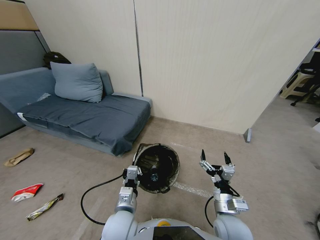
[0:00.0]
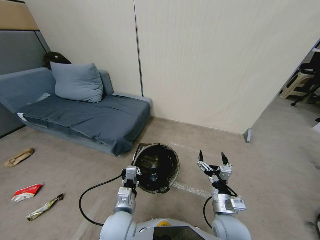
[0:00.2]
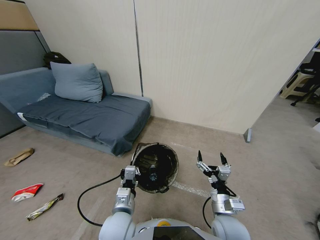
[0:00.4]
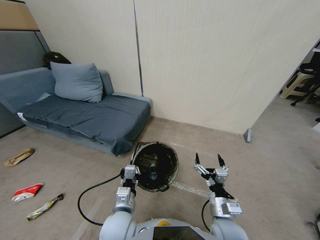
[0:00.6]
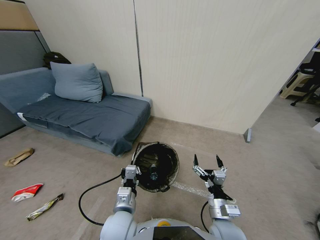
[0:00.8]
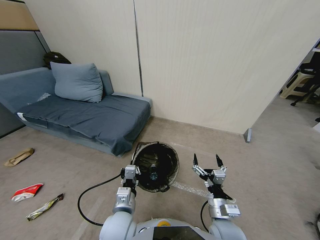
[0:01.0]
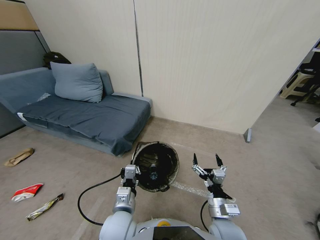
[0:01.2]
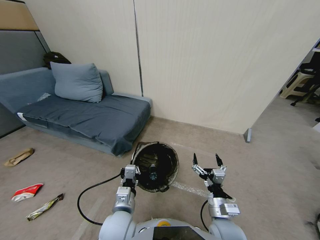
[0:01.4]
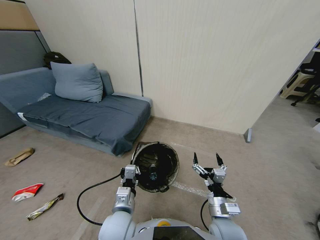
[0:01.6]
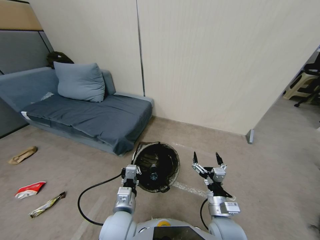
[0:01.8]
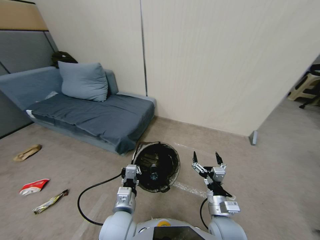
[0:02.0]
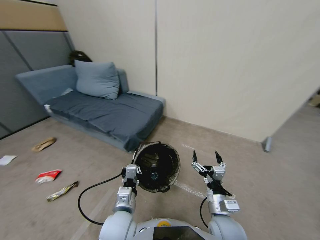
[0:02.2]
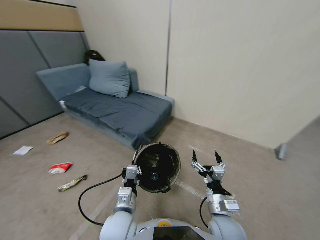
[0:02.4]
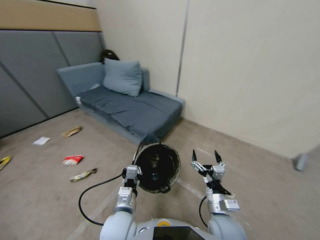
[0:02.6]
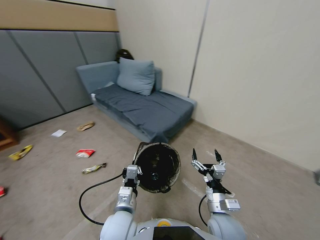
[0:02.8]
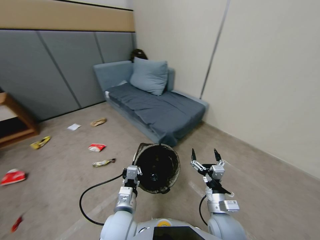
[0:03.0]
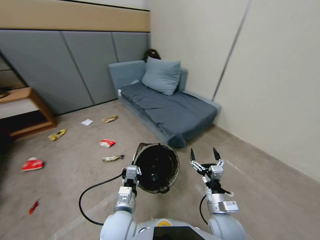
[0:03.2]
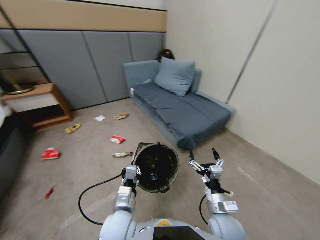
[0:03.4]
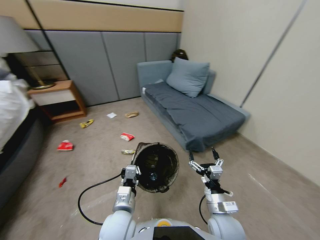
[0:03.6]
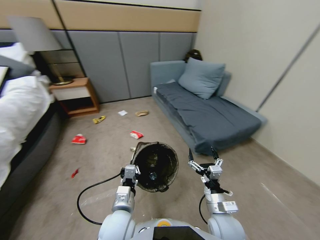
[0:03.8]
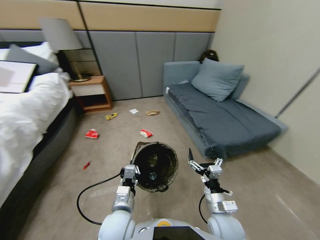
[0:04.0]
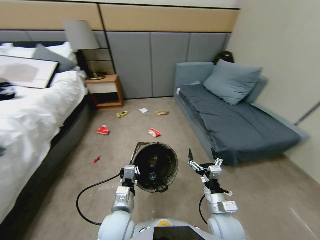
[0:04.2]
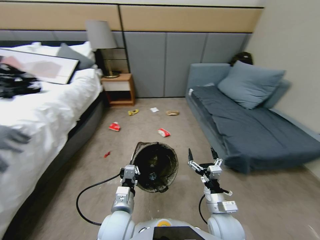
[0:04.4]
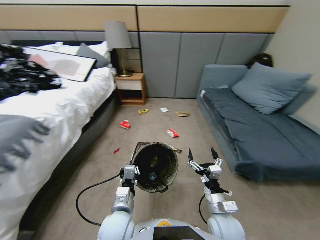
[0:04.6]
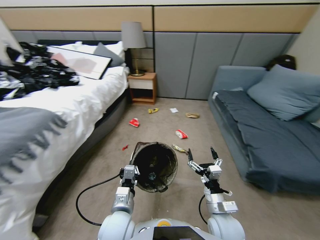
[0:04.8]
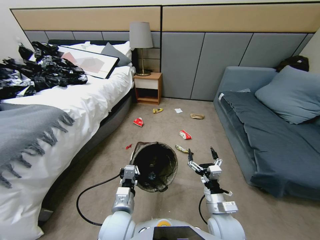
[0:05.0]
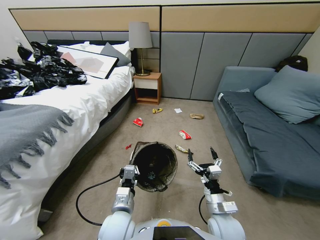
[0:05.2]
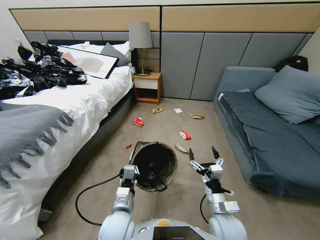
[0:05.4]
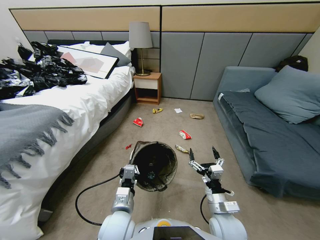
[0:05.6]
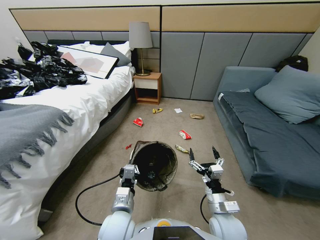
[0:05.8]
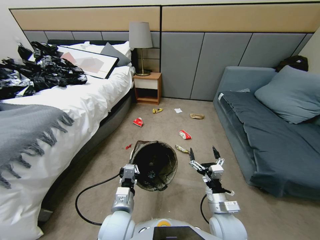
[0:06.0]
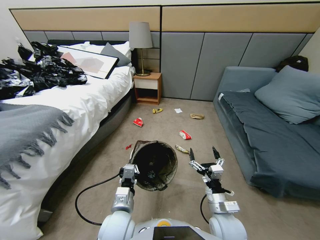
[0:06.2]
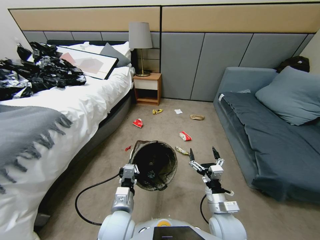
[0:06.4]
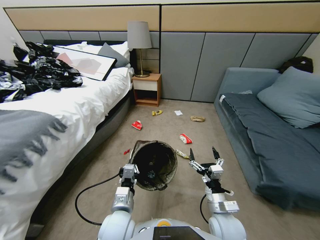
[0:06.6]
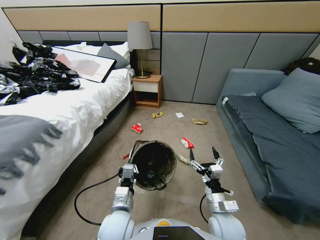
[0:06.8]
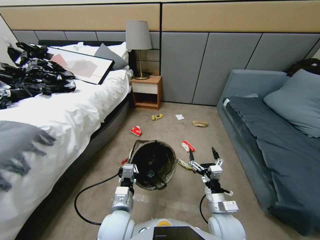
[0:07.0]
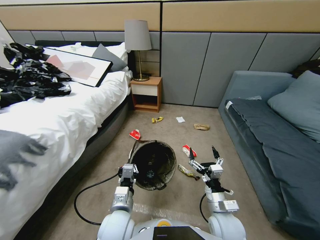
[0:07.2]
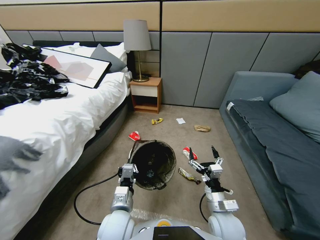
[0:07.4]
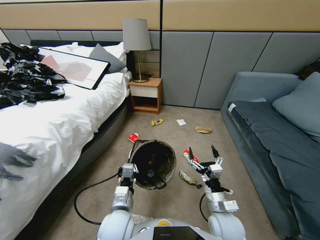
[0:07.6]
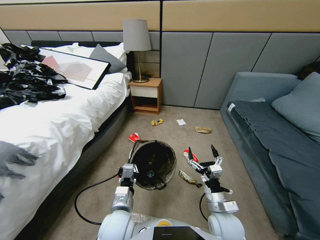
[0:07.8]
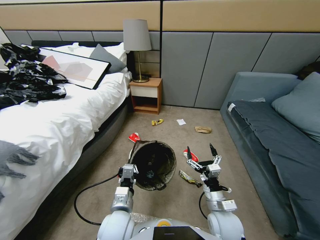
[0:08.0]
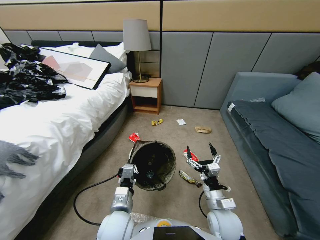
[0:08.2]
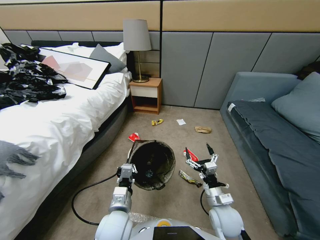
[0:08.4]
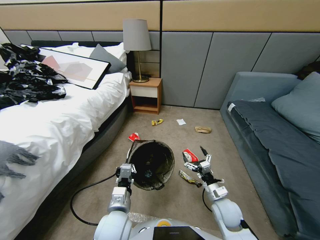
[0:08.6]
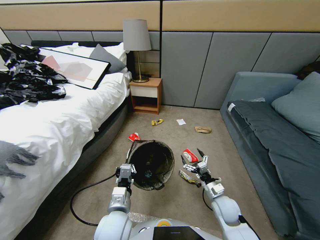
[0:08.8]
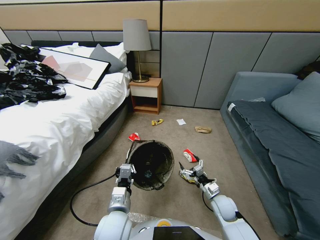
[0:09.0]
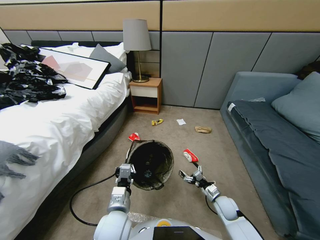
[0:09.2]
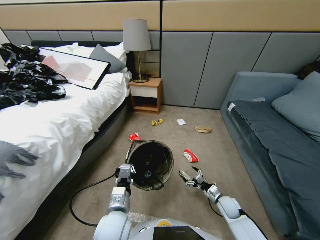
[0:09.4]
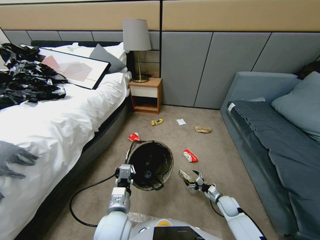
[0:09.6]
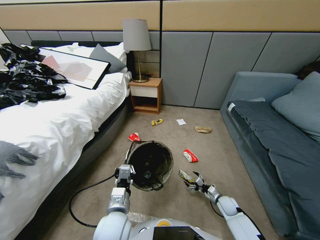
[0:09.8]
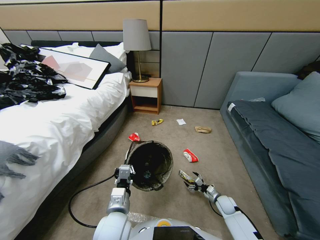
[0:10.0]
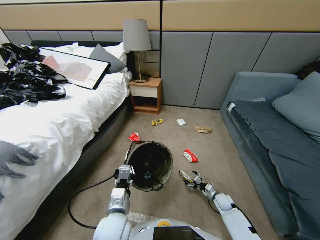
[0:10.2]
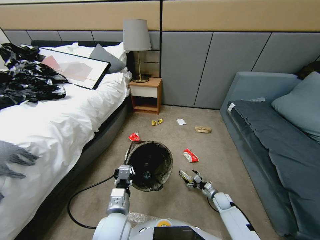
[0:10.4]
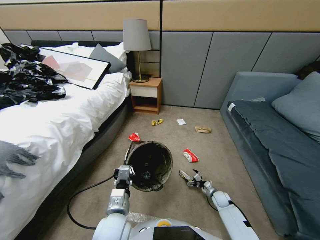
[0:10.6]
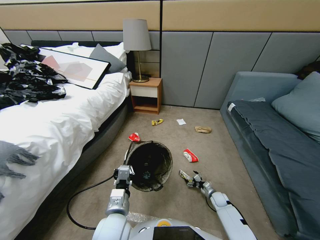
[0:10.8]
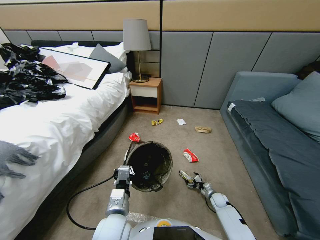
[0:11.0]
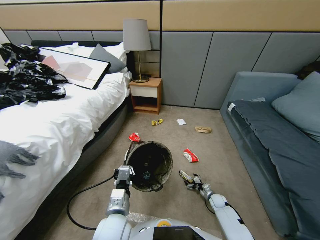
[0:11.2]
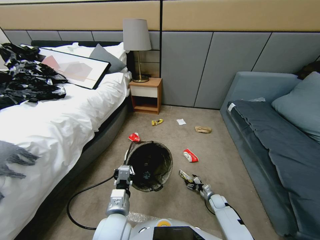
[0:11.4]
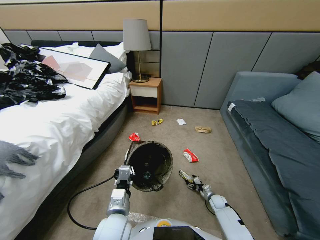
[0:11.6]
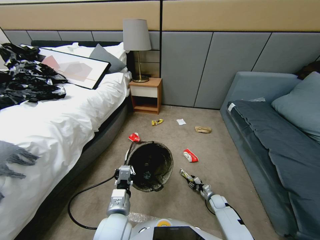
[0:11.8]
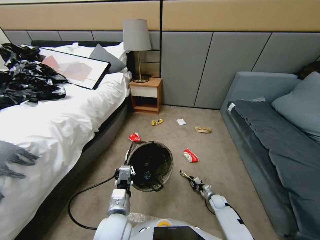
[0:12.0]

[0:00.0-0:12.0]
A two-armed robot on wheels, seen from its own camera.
Task of the whole recording: Pick up the trash bin, then pick up the garbage from the floor and place it into the trash bin.
0:00.0 to 0:01.6: The grippers make only small movements.
0:07.6 to 0:09.0: The right gripper heads downward, to the right and forward, covering about 20 cm.
0:09.0 to 0:10.4: The right gripper goes roughly 15 cm downward, to the right and forward.
0:10.4 to 0:12.0: The right gripper closes up.

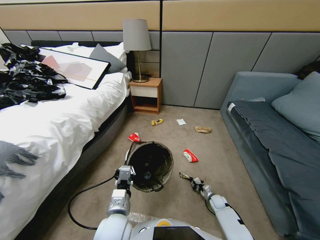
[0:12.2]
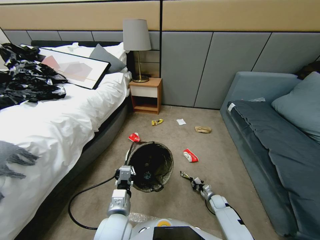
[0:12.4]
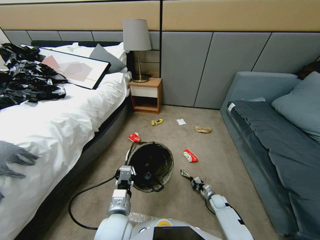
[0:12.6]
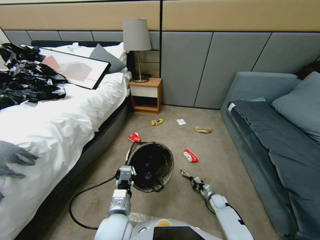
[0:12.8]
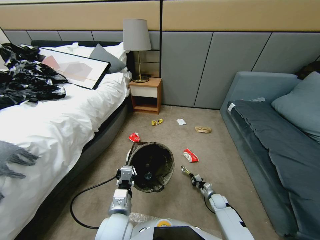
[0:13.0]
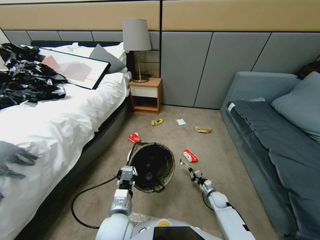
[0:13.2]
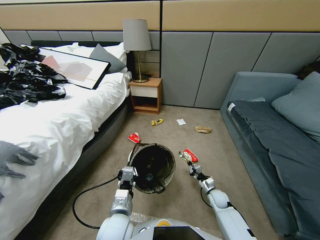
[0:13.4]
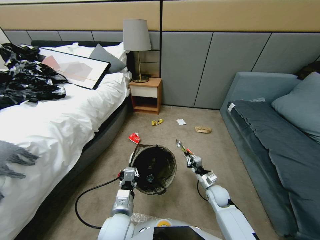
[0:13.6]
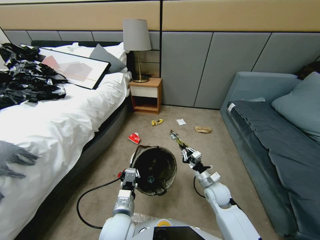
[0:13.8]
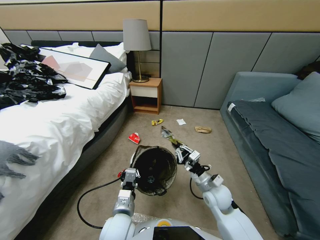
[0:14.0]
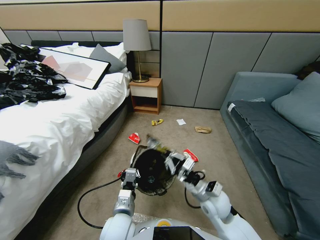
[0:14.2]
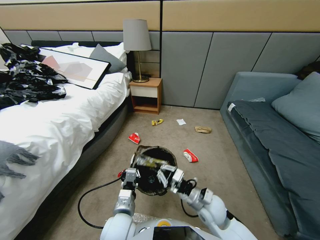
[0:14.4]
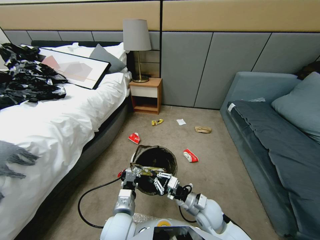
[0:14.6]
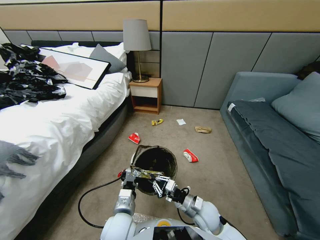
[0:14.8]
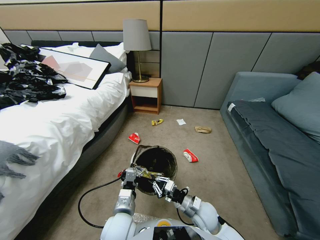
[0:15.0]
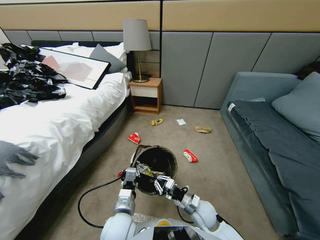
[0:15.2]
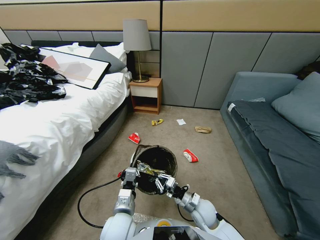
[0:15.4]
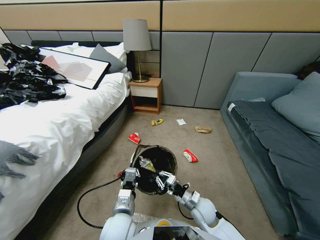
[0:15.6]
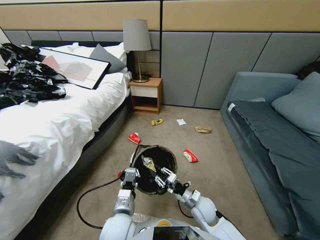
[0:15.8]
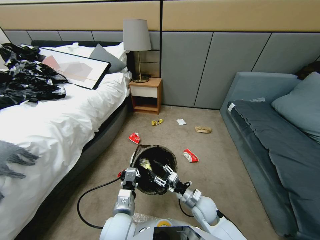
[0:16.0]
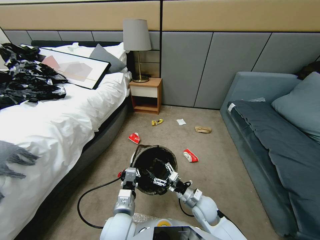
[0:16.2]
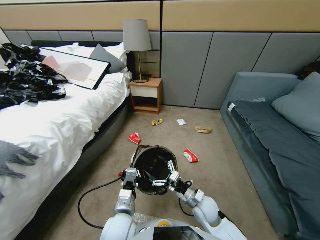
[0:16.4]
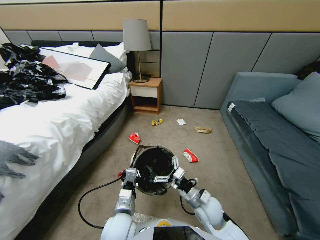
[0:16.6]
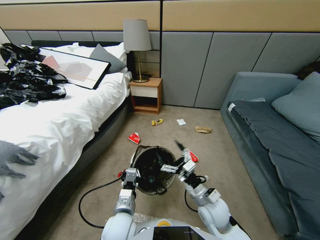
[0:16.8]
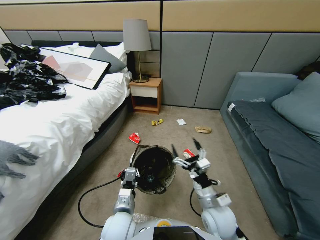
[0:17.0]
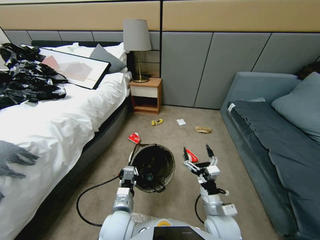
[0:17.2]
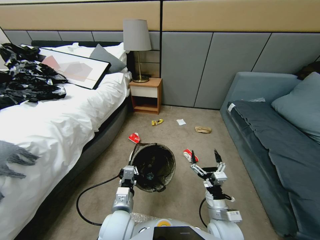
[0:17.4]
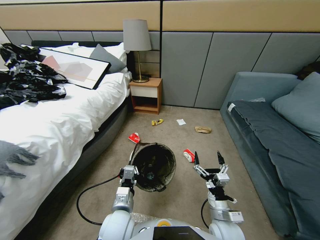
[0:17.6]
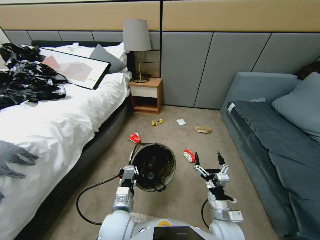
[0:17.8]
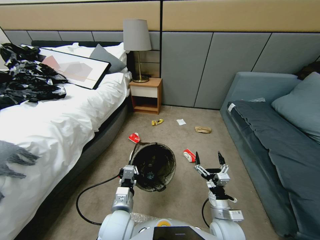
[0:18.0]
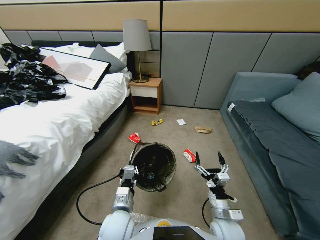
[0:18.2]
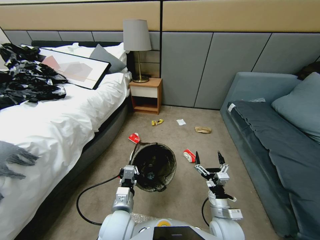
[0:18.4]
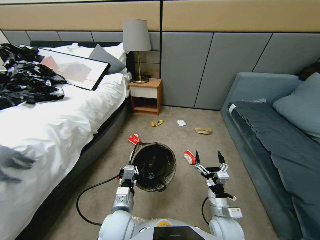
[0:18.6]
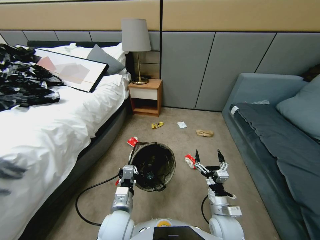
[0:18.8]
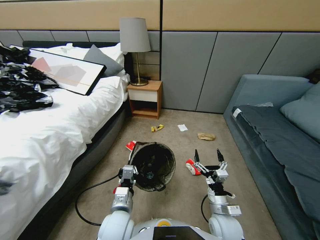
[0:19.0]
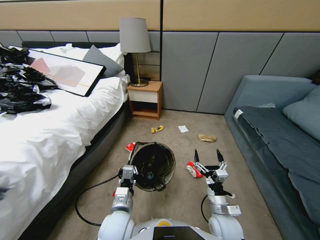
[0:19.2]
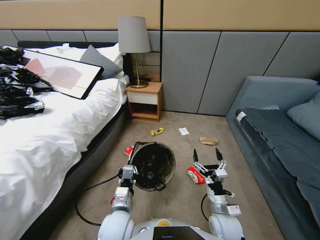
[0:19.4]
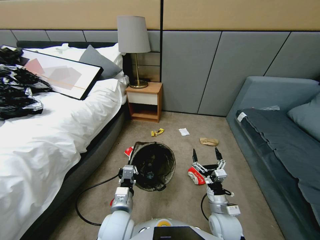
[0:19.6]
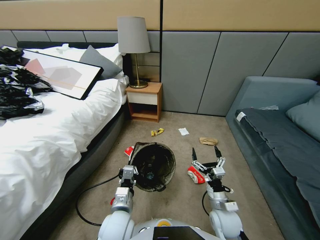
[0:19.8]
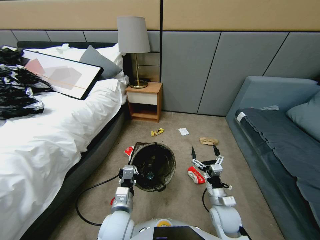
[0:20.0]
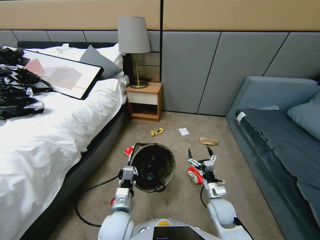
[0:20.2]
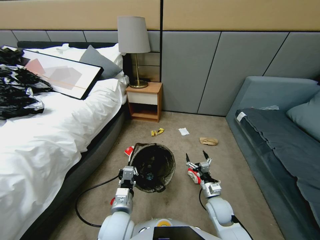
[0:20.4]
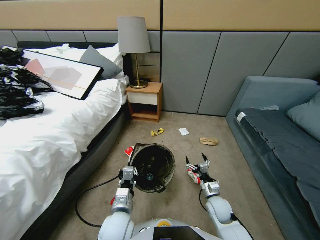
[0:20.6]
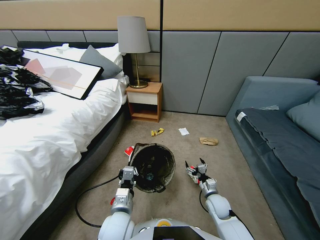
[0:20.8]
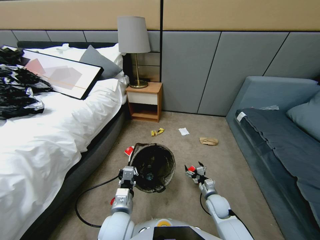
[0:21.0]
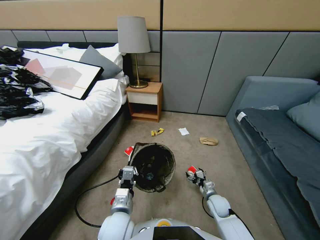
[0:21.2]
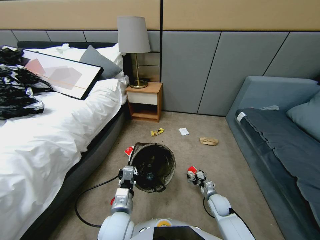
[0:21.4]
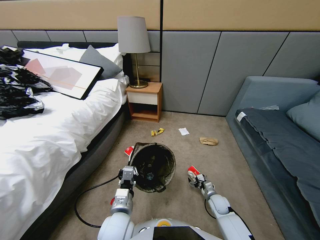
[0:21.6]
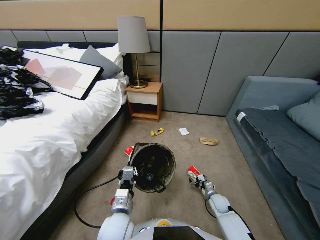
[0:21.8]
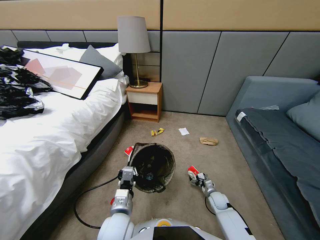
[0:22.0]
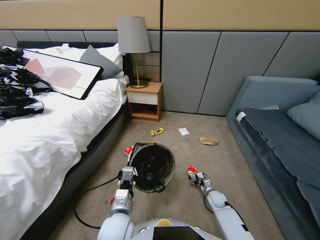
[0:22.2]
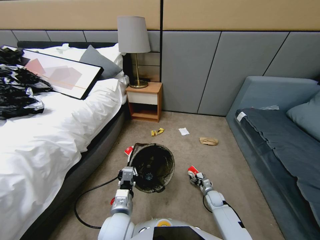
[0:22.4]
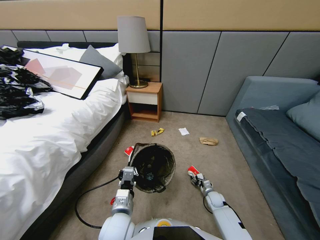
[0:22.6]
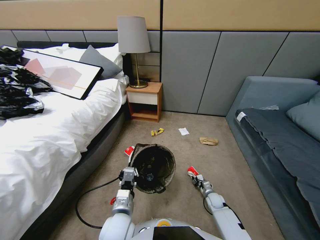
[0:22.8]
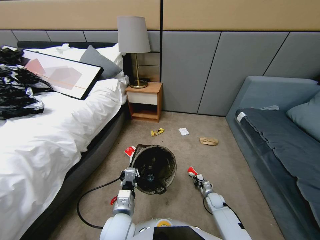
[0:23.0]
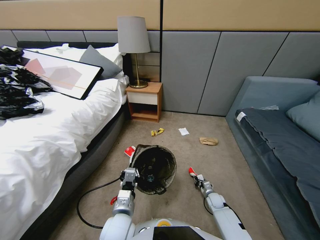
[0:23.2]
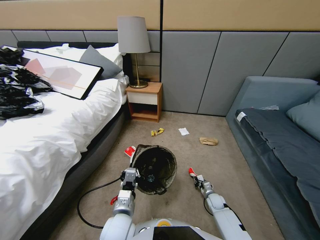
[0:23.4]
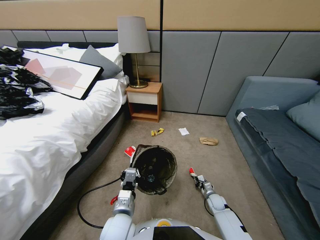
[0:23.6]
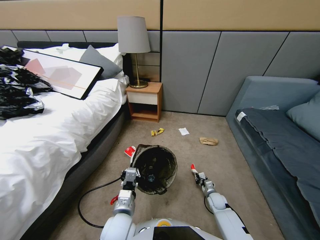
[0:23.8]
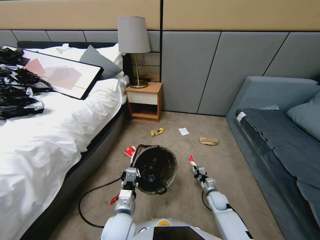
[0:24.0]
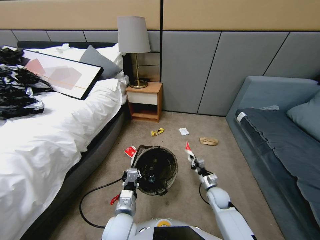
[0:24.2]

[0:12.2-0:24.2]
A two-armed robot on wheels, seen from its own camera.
Task of the whole recording: Pick up the trash bin, then pick up the garbage from the floor and place it into the trash bin.
0:12.2 to 0:13.8: The right gripper is displaced upward and to the left by about 30 cm.
0:13.8 to 0:15.2: The right gripper moves downward, to the left and backward, about 10 cm.
0:15.2 to 0:16.6: The right gripper travels upward by some 10 cm, and opens up.
0:16.6 to 0:18.2: The right gripper moves backward, about 5 cm.
0:19.8 to 0:21.2: The right gripper travels downward, forward and to the right by approximately 15 cm.
0:21.2 to 0:22.6: The right gripper goes some 10 cm downward, and closes up.
0:22.6 to 0:24.2: The right gripper goes roughly 15 cm upward, and closes its fingers.
